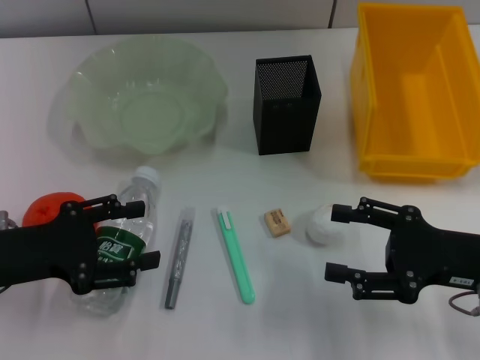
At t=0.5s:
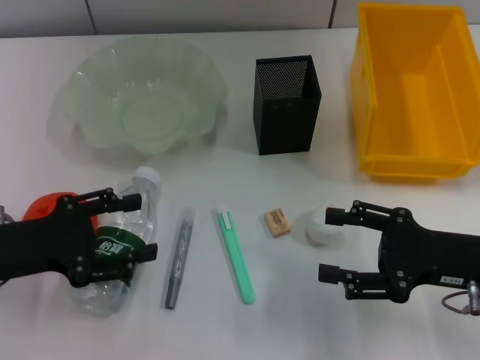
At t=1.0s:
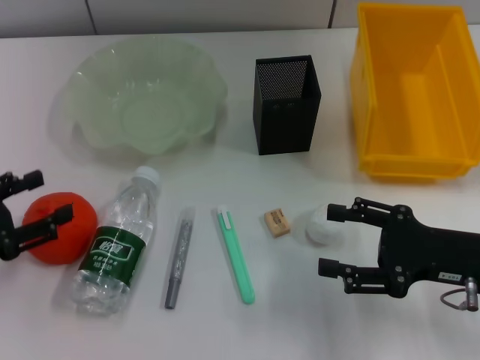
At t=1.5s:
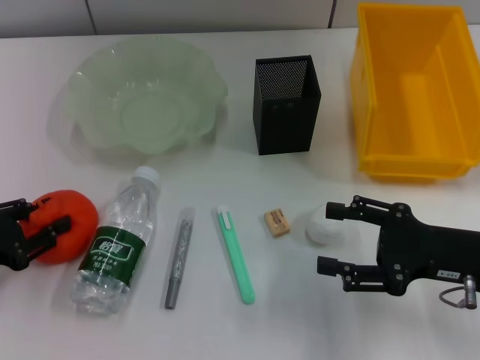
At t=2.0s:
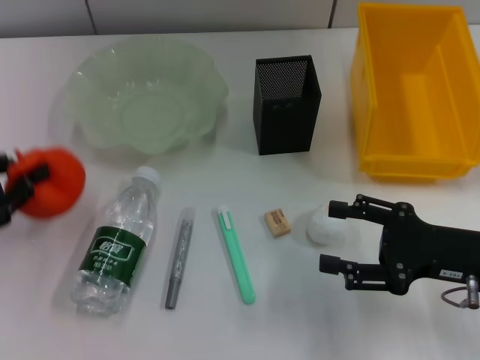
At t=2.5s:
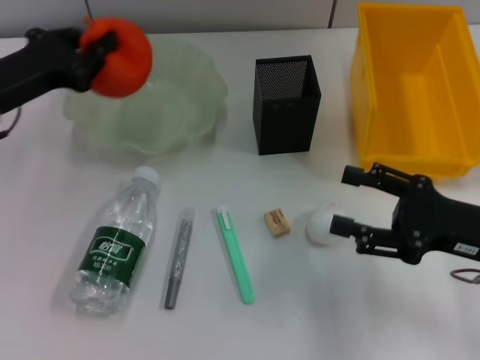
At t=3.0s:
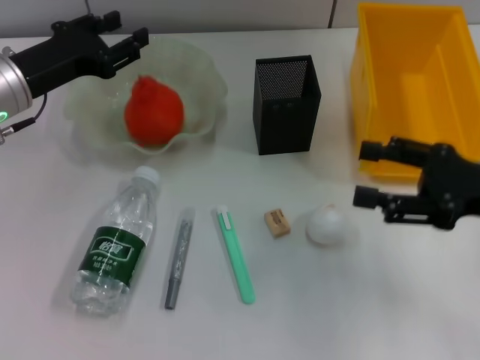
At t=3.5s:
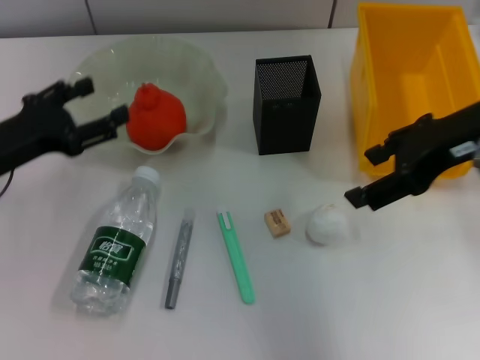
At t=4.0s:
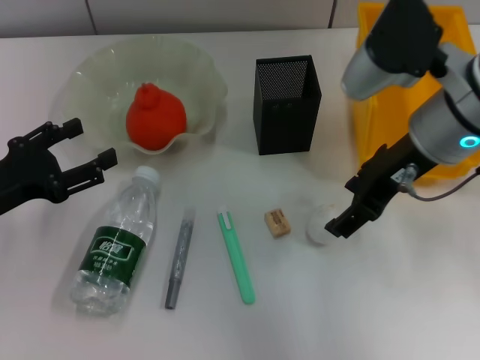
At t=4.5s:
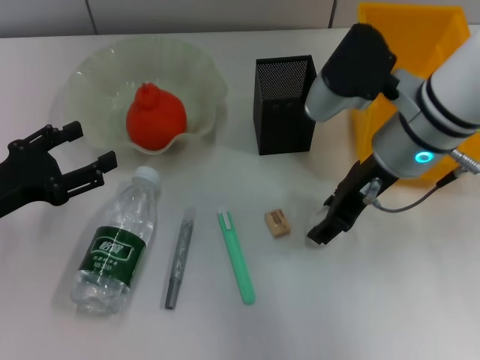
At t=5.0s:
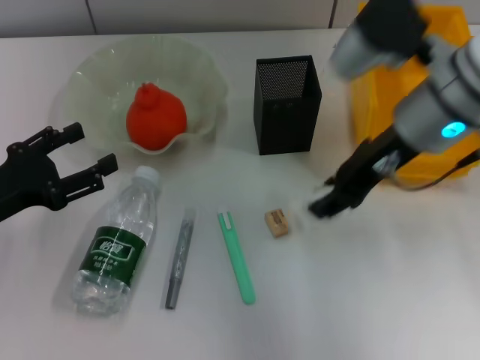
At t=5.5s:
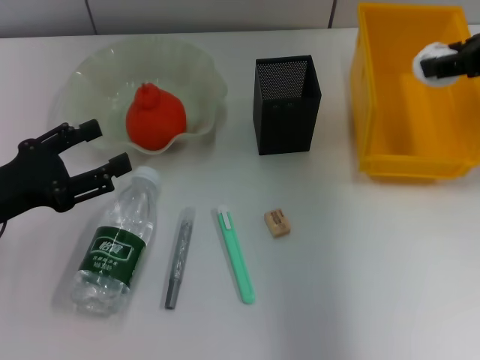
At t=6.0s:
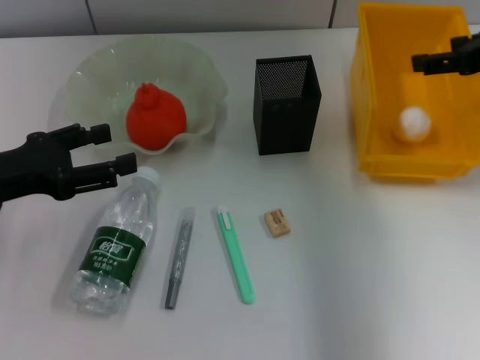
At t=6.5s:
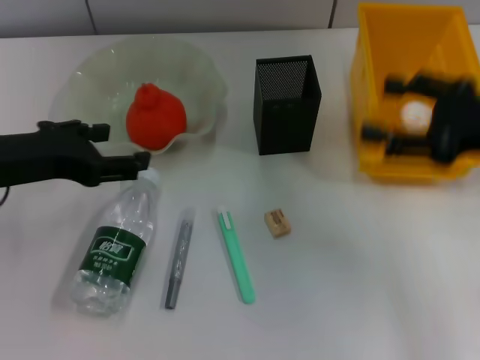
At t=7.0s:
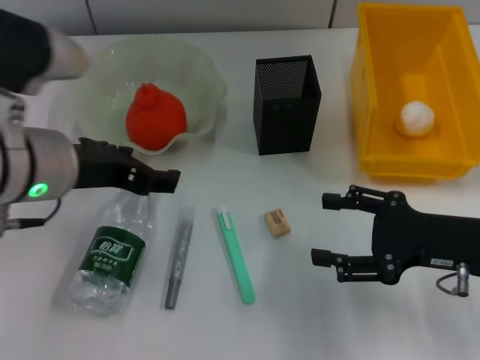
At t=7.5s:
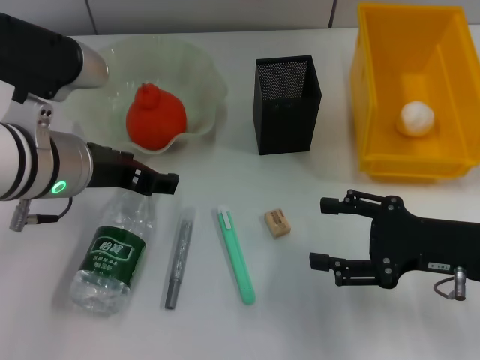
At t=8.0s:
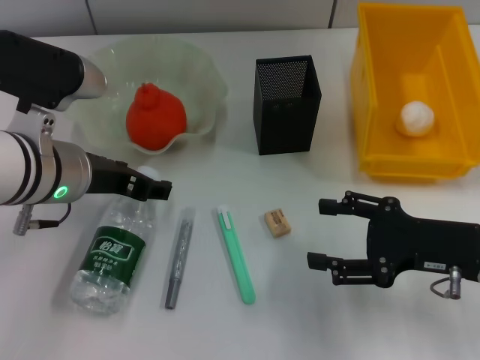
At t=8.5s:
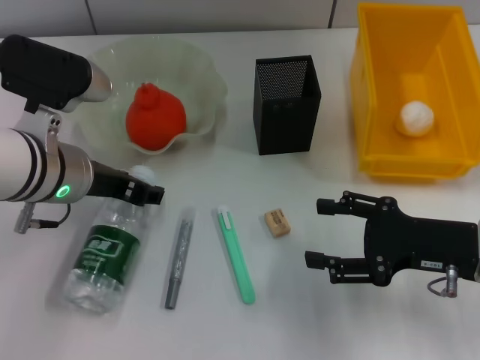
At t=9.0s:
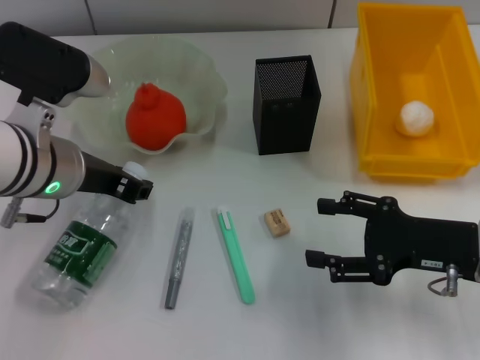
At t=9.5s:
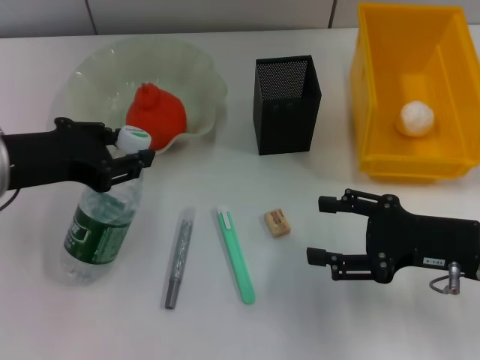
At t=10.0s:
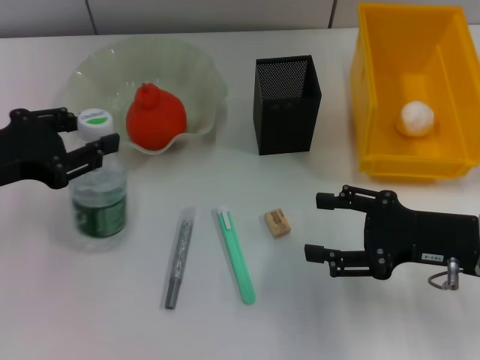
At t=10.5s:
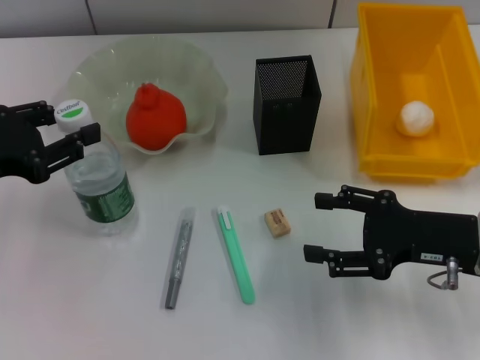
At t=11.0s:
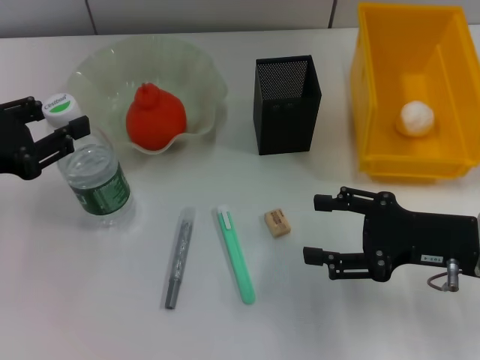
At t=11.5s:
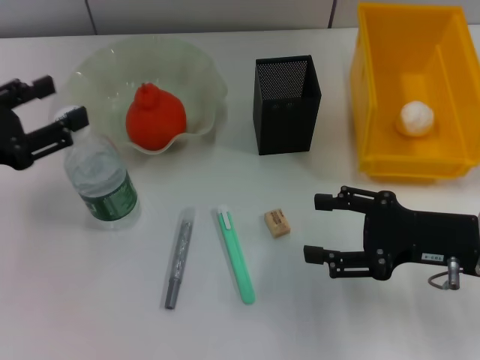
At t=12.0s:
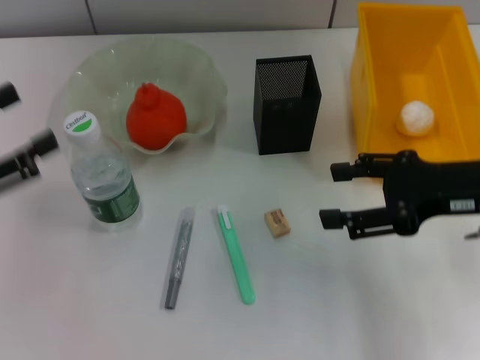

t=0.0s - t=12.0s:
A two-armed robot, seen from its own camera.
Step, t=0.0s - t=1.5s: Grab the orange with the left hand.
Step, t=2.0s - t=3.0s: Place the orange into the fruit bowl with the left hand.
Step, t=3.5s - t=4.0s: Grab the paper ball with the right hand.
Step, t=5.0s - t=6.0s: Place the paper ball into the trash can with the right hand.
Step, t=6.5s - t=8.5s: Grab the water bottle with the left hand.
Step, t=9.0s - t=11.0s: Place the water bottle on the table with the left hand.
t=0.0s - t=2.0s: The left gripper is displaced to the left by roughly 5 cm, and closes.
t=2.0s - t=4.0s: The left gripper moves about 15 cm forward and comes back, and opens up. Meanwhile the right gripper goes about 20 cm upward, to the left and forward.
t=4.0s - t=6.0s: The right gripper shifts some 15 cm to the right.
t=6.0s - t=8.0s: The right gripper moves downward and backward, approximately 20 cm. Meanwhile the left gripper is displaced to the right by approximately 10 cm.
t=8.0s - t=10.0s: The left gripper shifts some 10 cm to the left, and closes its fingers.
t=10.0s - t=12.0s: The right gripper shifts roughly 10 cm upward; the left gripper goes some 5 cm to the left, and opens up.

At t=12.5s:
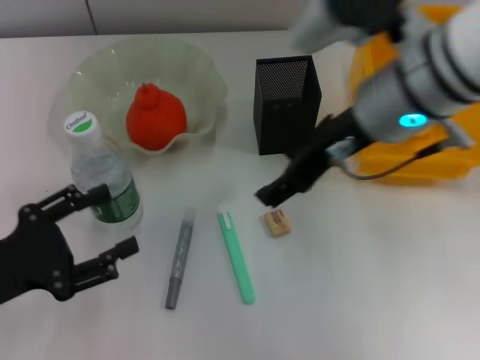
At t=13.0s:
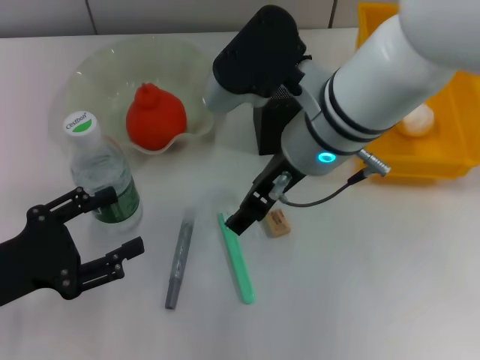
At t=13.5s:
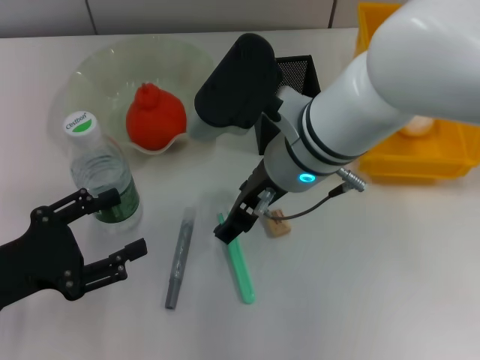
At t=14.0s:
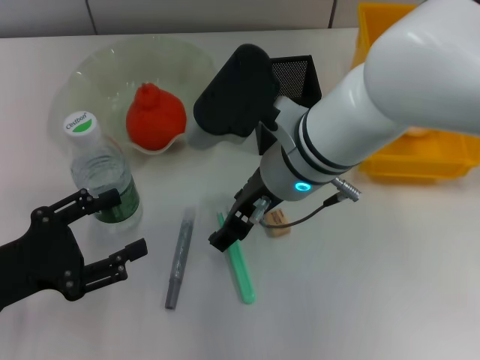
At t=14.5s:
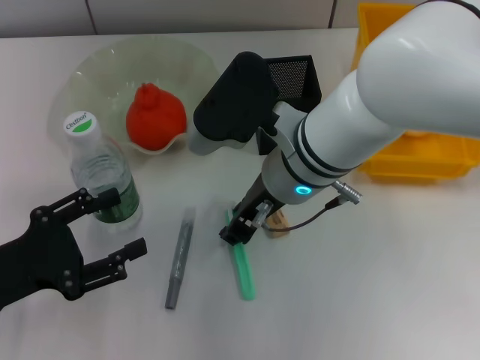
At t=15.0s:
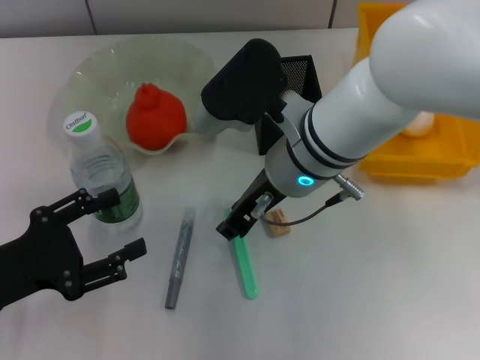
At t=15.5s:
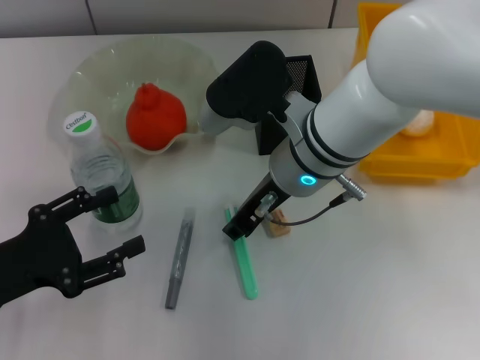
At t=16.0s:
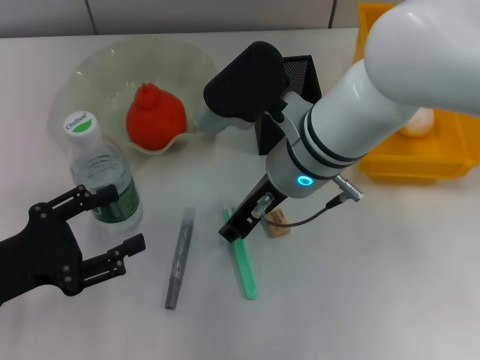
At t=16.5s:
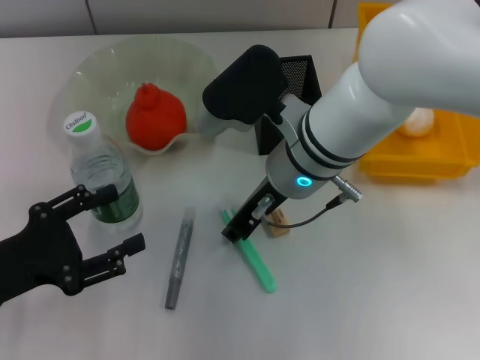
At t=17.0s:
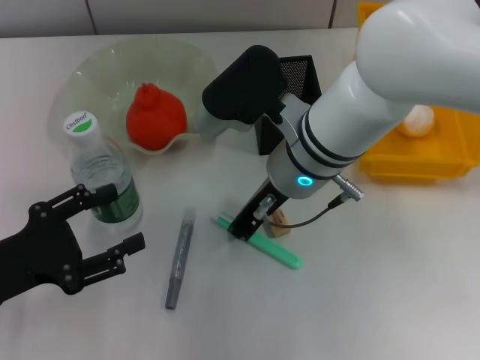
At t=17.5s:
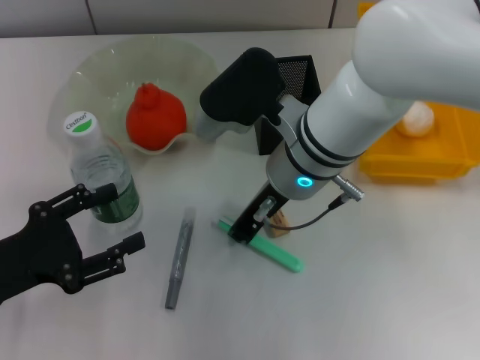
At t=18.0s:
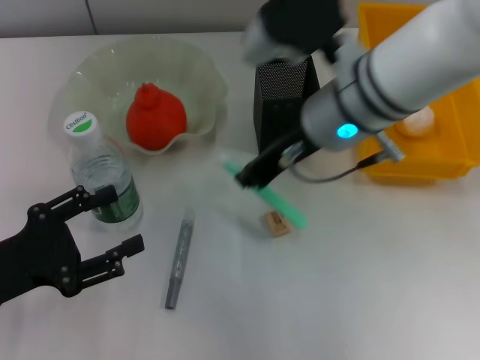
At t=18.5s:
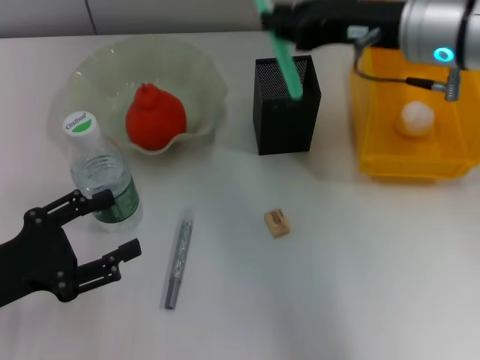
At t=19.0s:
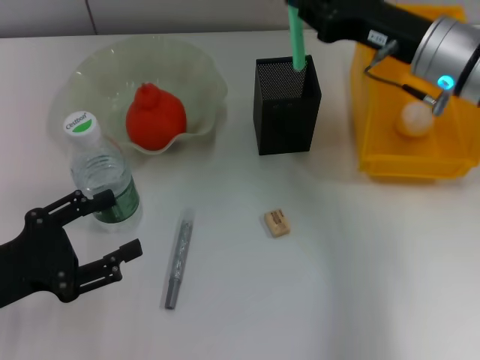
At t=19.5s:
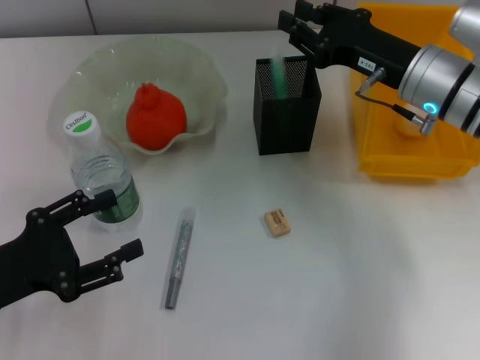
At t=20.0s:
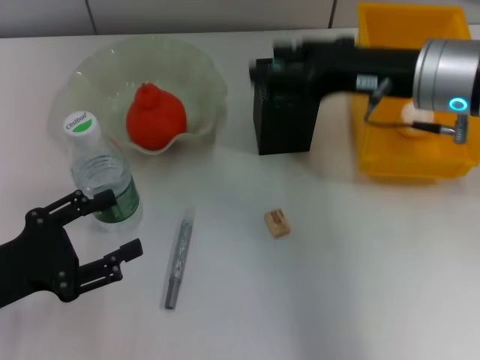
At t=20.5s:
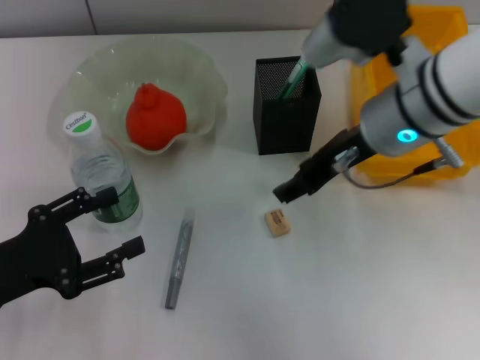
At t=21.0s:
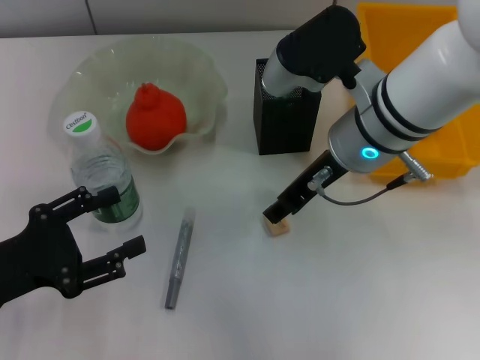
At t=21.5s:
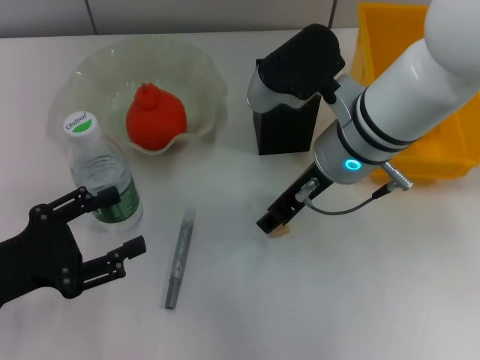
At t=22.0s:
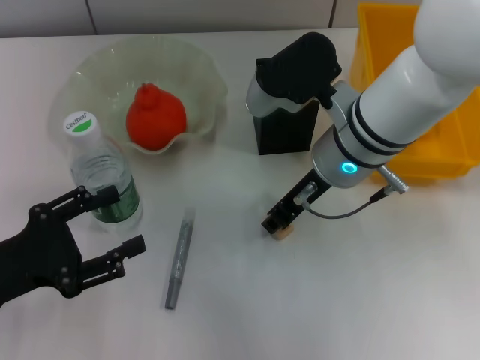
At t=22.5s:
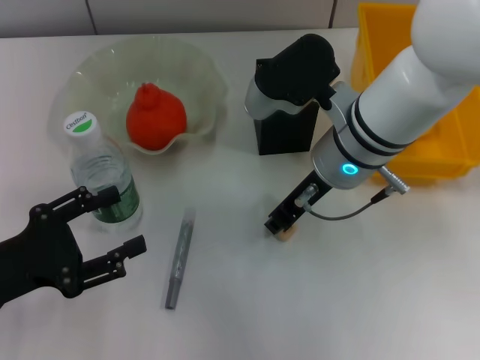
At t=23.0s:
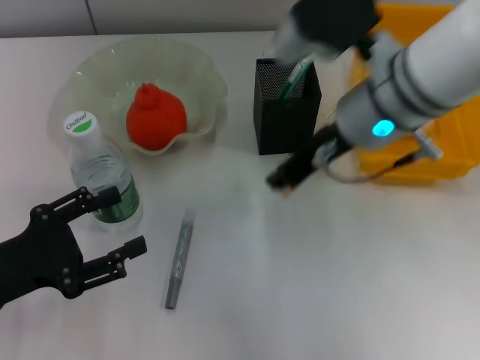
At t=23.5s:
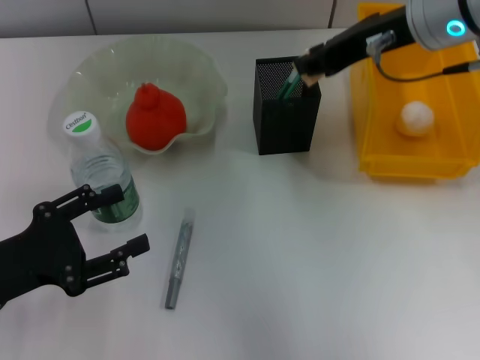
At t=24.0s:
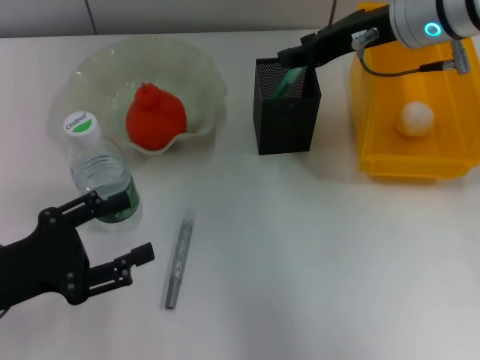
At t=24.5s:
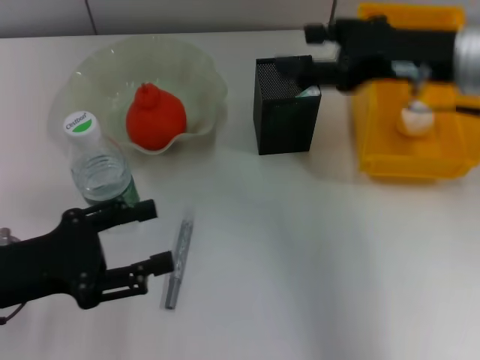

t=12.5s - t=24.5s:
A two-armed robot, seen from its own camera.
Step, t=12.5s - t=17.0s: Grab the blue utility knife with the right hand.
Step, t=17.5s - t=19.5s: Place the blue utility knife into the pen holder with the right hand.
Step, t=20.0s - t=22.0s: Grab the eraser with the right hand.
Step, t=22.5s - t=24.0s: Put the eraser into the pen holder with the right hand.
t=12.5s - t=14.5s: The right gripper goes approximately 10 cm downward and to the left.
t=14.5s - t=16.5s: The grippers stay close to where they were, moving slightly.
t=16.5s - t=18.5s: The right gripper goes approximately 15 cm to the right and upward.
t=18.5s - t=20.5s: The right gripper opens.
t=20.5s - t=22.5s: The right gripper ends up some 5 cm from where it was, and closes its fingers.
t=22.5s - t=24.5s: The right gripper moves to the right and upward, about 15 cm, and opens up.

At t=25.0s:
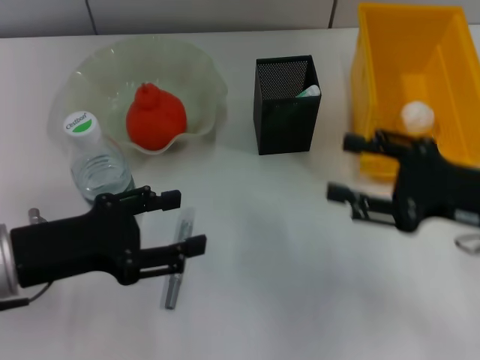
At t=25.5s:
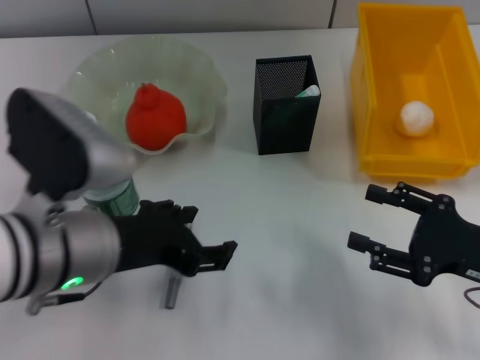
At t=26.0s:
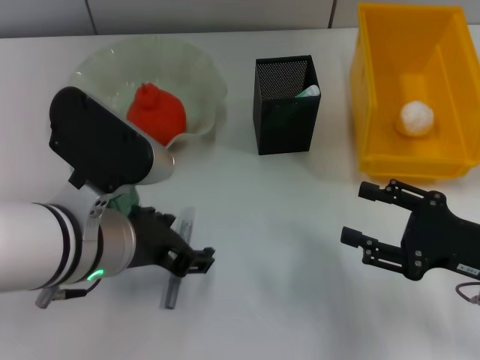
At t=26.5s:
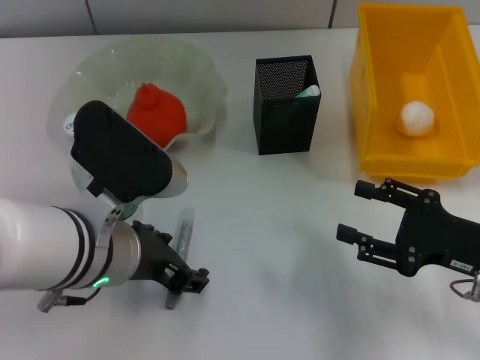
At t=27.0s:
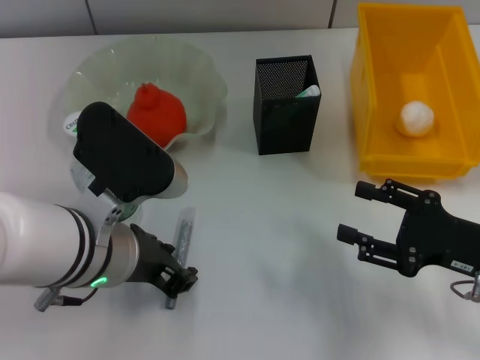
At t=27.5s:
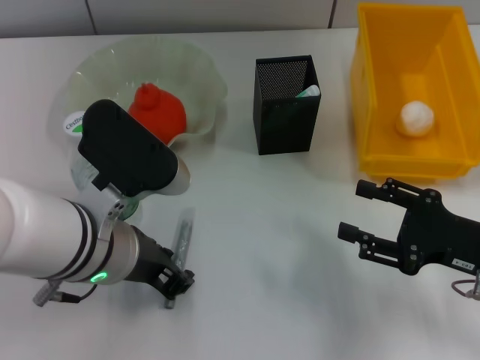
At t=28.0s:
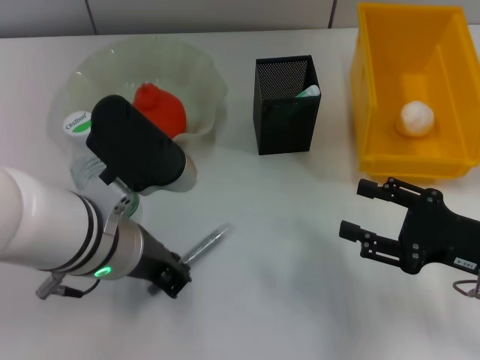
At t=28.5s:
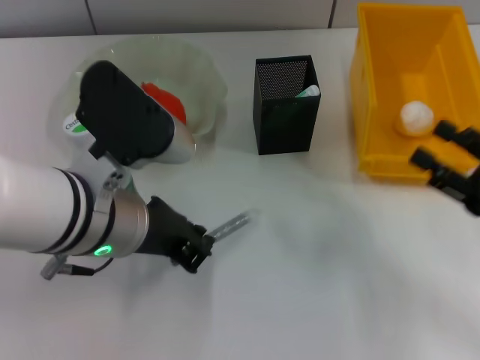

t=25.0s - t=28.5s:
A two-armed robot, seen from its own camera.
t=25.0s - t=27.0s: The right gripper moves downward, some 5 cm. The left gripper is displaced to the right by about 10 cm.
t=27.0s - t=28.5s: The left gripper closes up.
